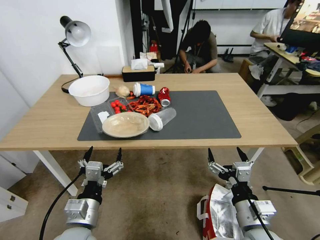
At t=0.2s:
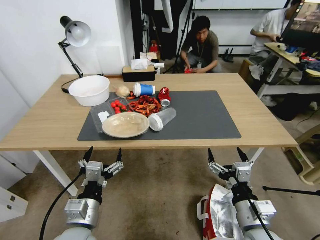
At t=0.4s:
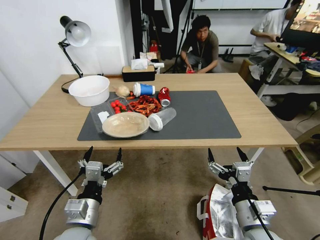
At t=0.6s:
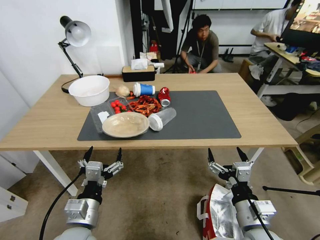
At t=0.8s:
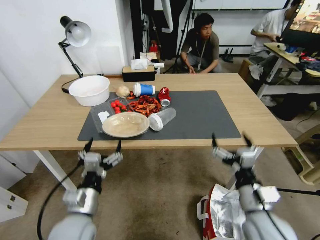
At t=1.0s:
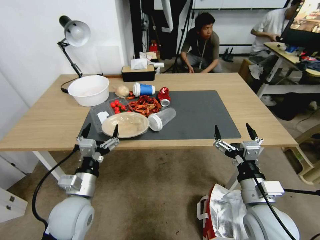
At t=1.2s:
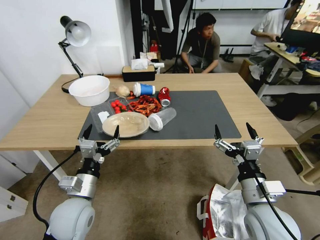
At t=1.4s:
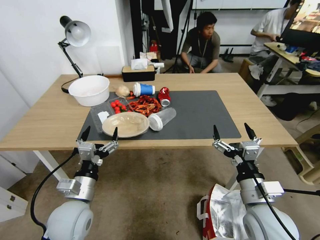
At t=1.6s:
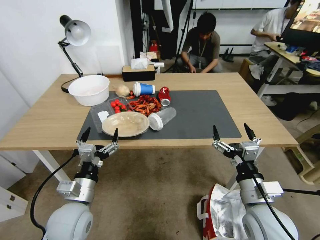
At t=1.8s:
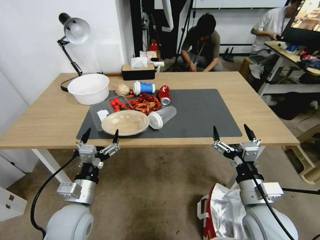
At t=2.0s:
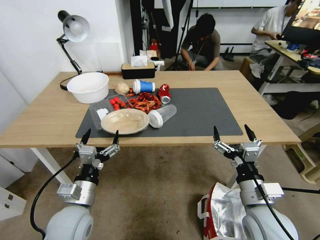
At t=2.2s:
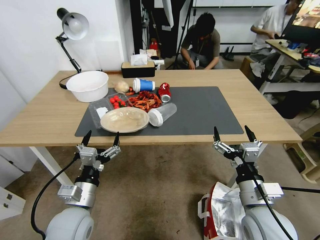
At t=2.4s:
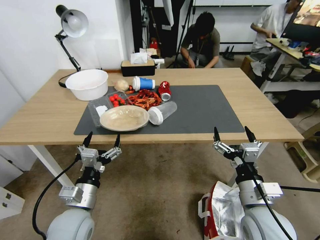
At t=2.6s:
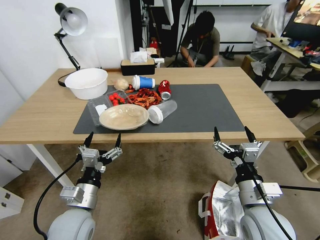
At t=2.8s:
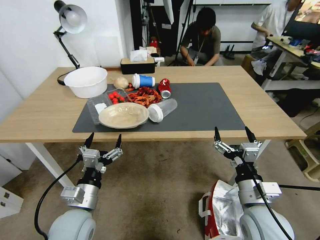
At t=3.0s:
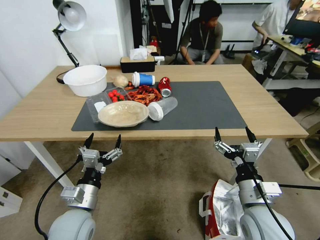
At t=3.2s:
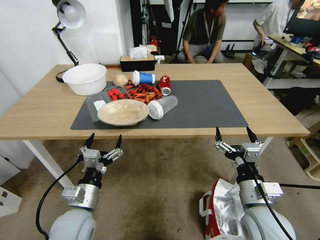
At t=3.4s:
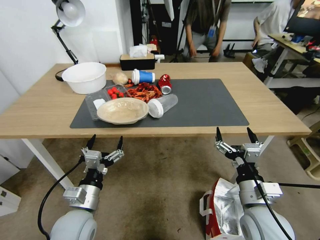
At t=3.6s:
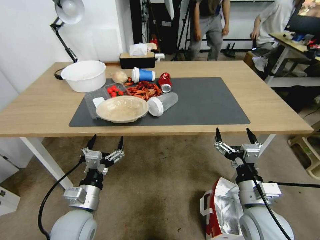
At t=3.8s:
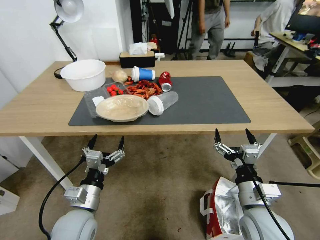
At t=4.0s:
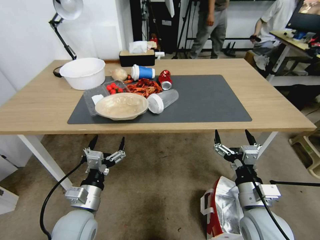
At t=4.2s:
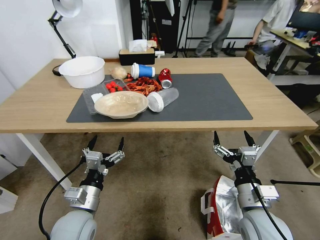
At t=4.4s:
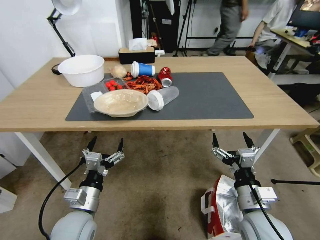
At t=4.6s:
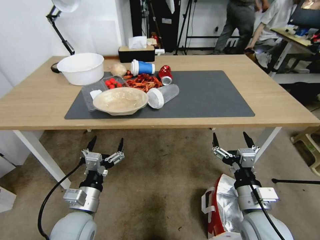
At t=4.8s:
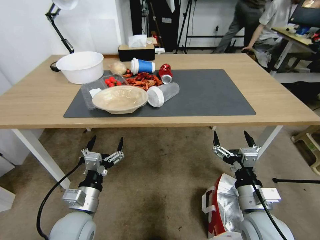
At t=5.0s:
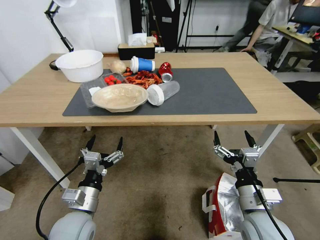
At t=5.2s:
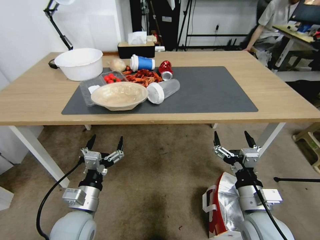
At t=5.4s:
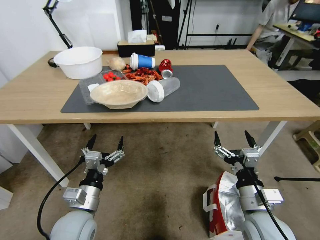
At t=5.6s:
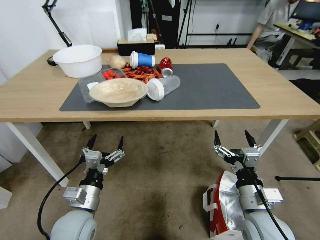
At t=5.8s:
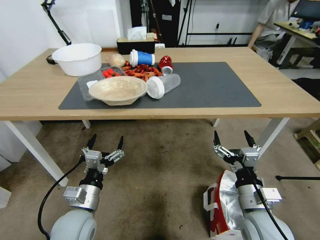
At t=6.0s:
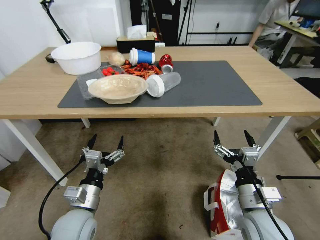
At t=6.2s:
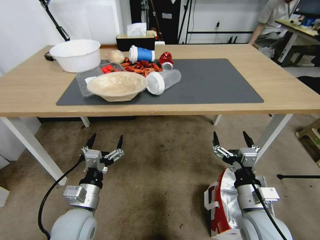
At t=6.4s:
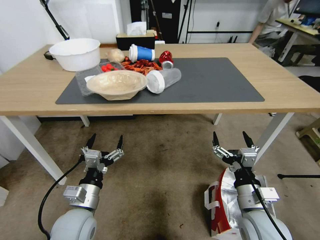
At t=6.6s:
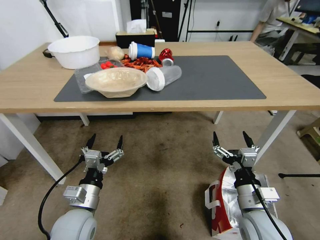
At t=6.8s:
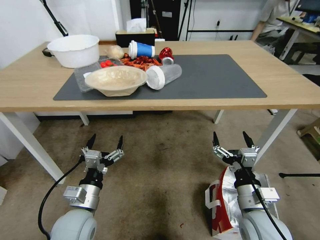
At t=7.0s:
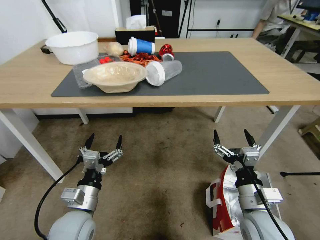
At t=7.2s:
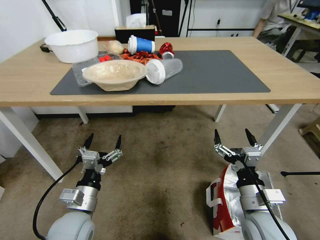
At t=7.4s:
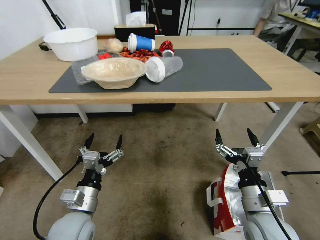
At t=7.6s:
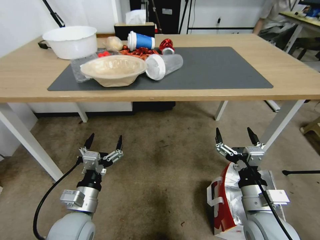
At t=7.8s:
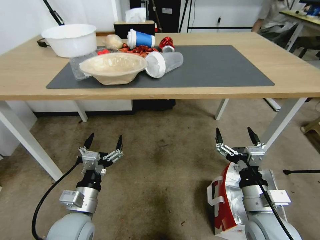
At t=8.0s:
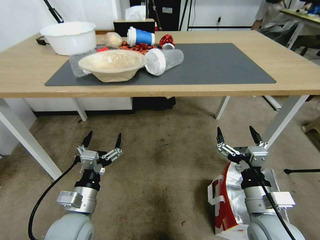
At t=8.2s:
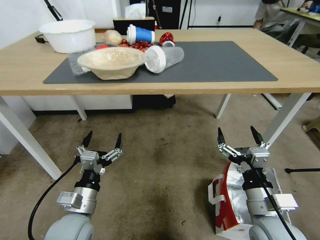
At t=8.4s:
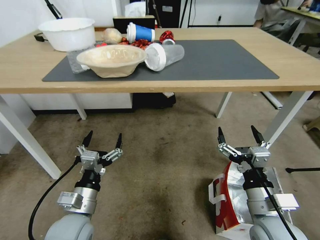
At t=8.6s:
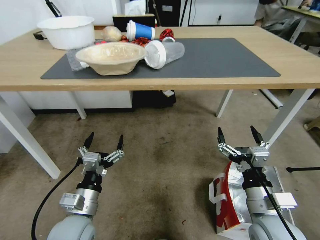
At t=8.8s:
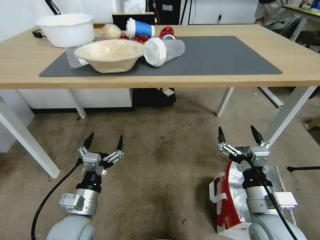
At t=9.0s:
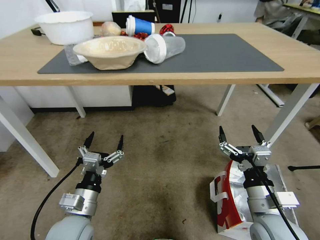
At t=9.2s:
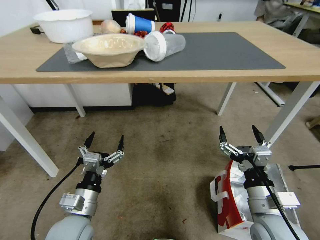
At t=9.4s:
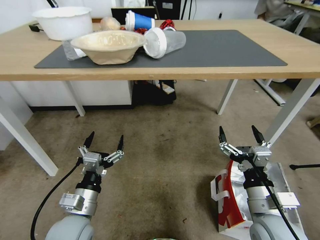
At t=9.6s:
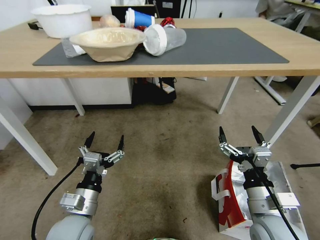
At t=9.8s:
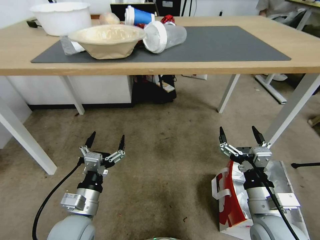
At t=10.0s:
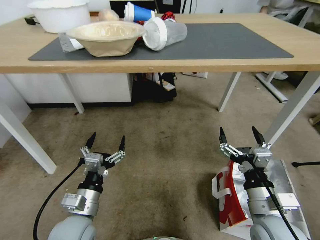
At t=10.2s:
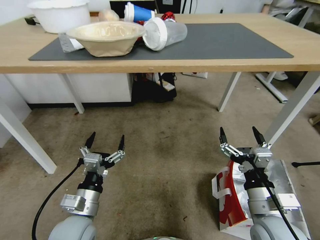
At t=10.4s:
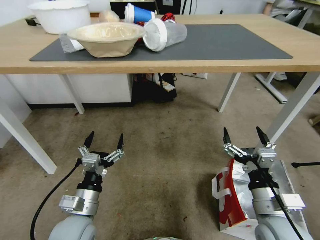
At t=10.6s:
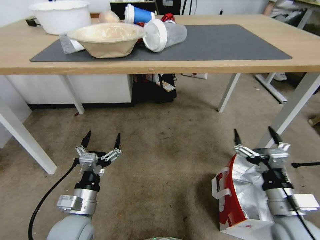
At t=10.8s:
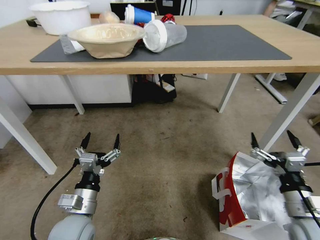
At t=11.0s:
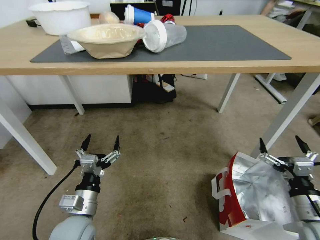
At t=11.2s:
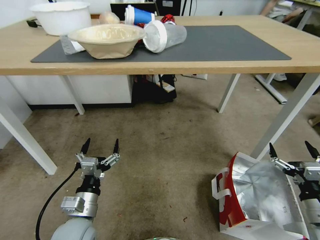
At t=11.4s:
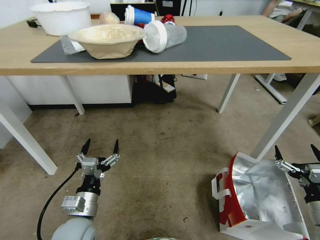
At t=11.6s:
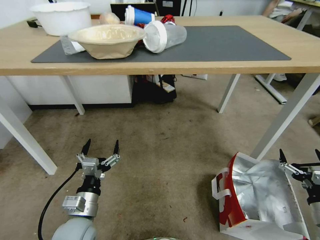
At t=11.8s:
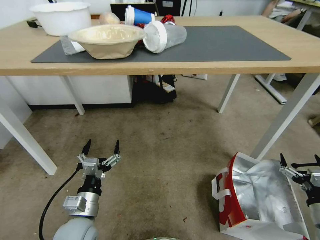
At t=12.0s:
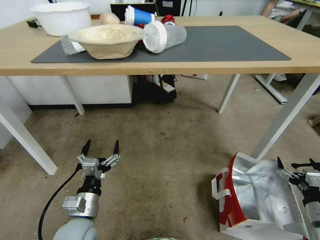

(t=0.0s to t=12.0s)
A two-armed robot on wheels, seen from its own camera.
Task of the whole recording: Pick up the food delivery bag from the floor and place it on the table.
t=10.4s - t=12.0s: The right gripper travels to the right and downward by roughly 25 cm.

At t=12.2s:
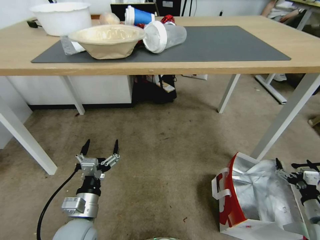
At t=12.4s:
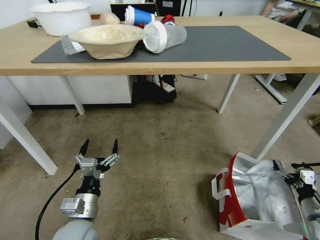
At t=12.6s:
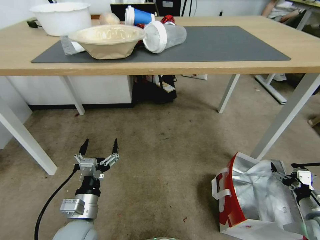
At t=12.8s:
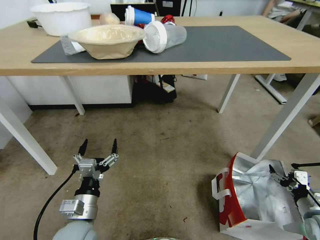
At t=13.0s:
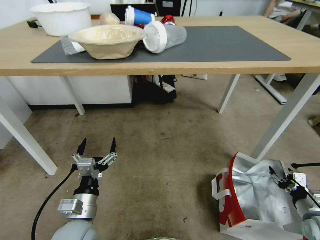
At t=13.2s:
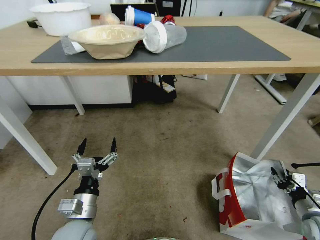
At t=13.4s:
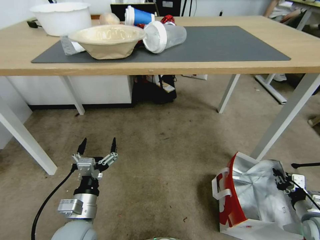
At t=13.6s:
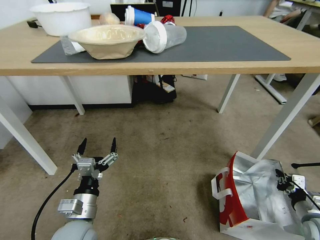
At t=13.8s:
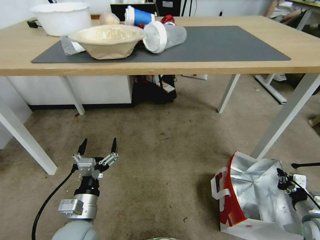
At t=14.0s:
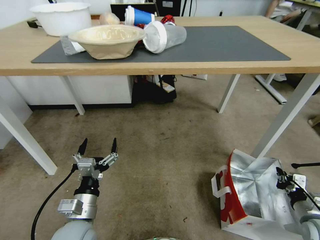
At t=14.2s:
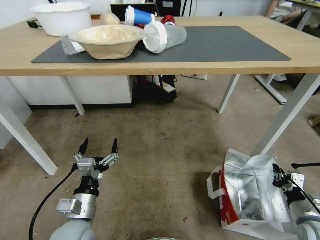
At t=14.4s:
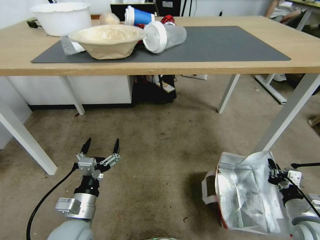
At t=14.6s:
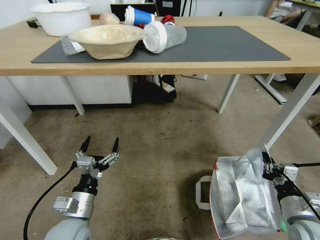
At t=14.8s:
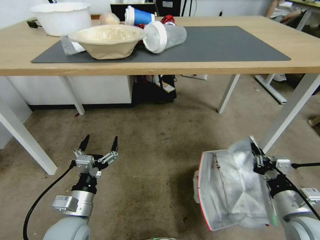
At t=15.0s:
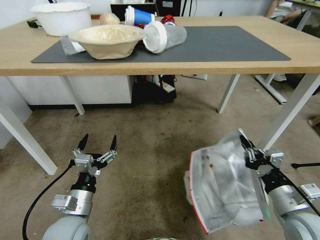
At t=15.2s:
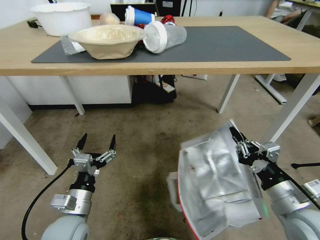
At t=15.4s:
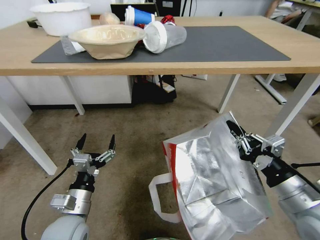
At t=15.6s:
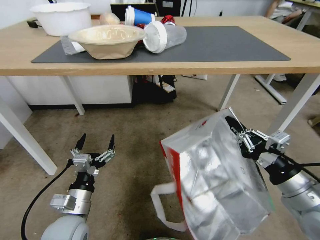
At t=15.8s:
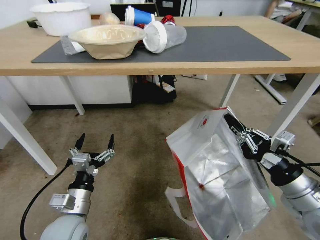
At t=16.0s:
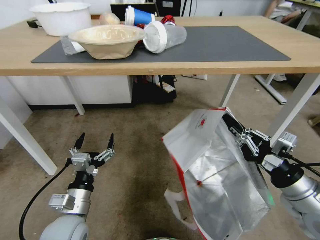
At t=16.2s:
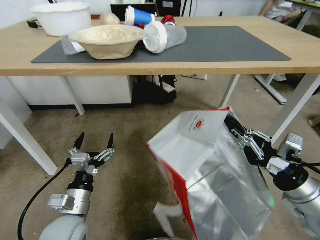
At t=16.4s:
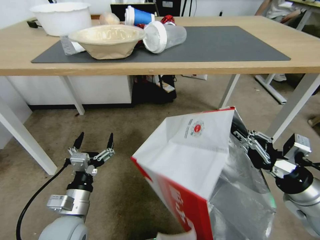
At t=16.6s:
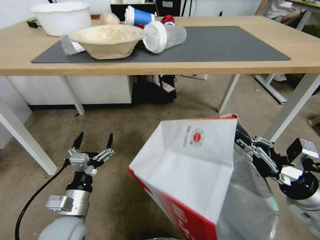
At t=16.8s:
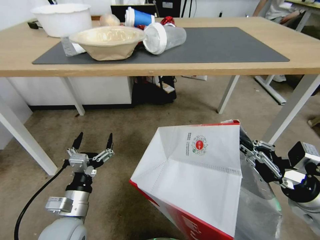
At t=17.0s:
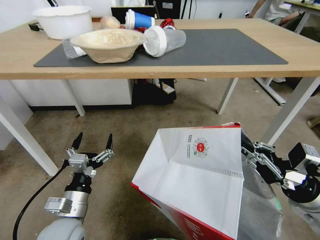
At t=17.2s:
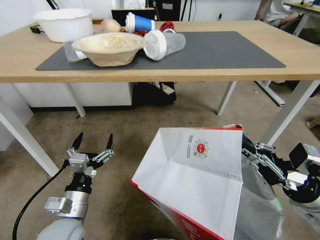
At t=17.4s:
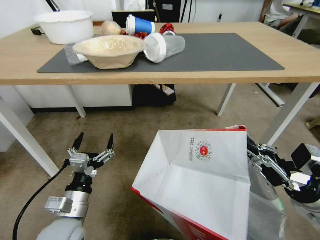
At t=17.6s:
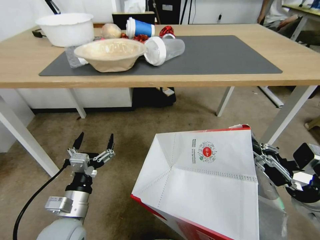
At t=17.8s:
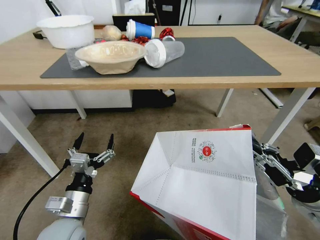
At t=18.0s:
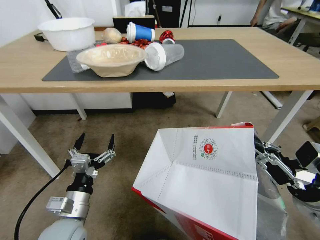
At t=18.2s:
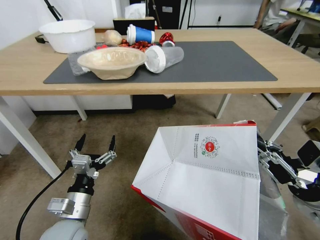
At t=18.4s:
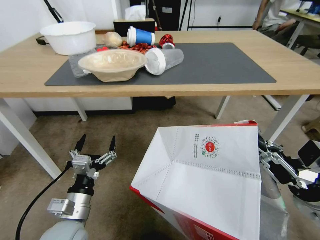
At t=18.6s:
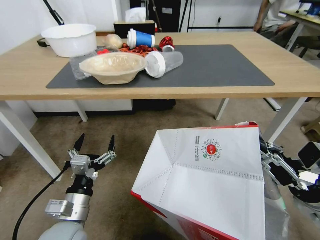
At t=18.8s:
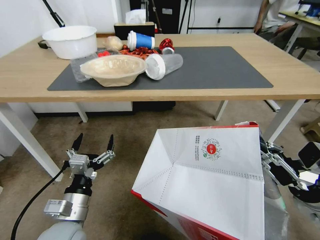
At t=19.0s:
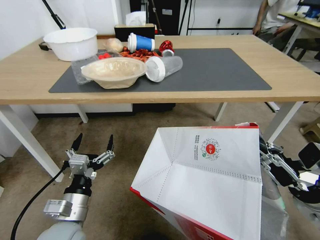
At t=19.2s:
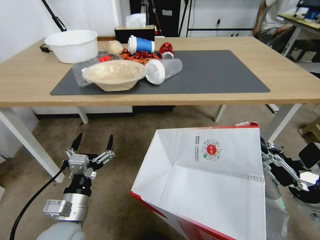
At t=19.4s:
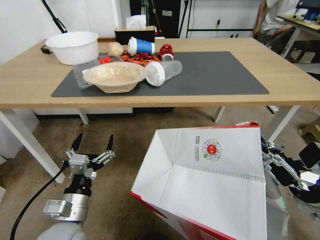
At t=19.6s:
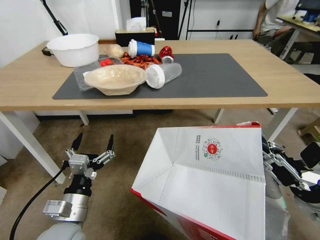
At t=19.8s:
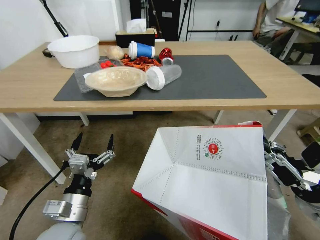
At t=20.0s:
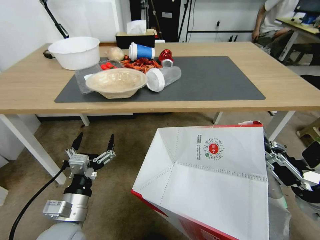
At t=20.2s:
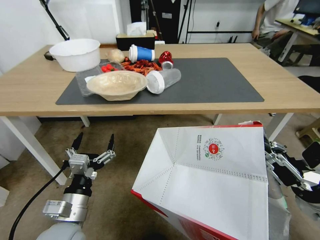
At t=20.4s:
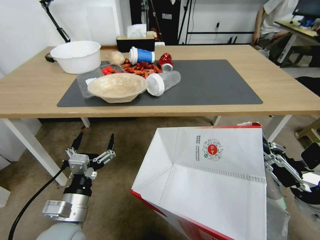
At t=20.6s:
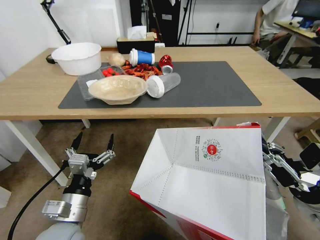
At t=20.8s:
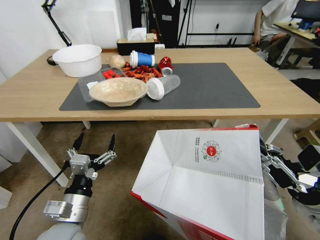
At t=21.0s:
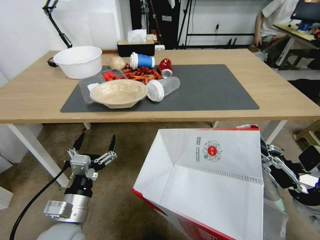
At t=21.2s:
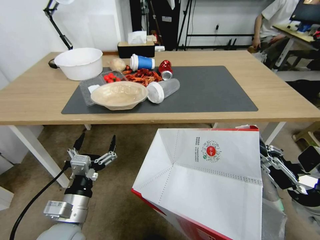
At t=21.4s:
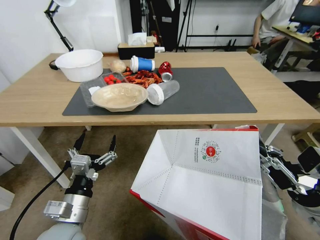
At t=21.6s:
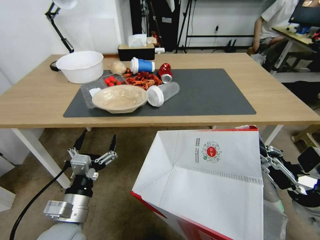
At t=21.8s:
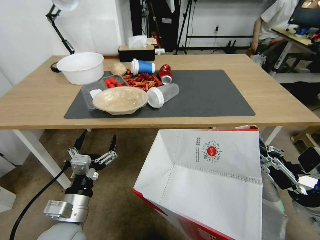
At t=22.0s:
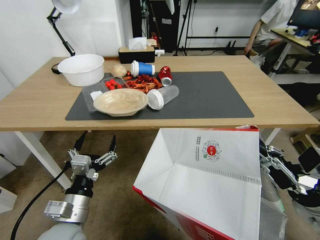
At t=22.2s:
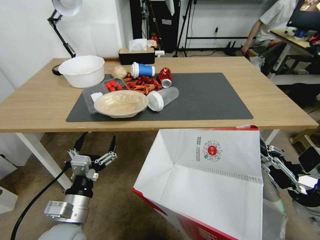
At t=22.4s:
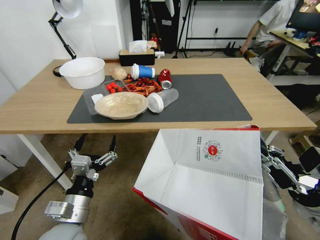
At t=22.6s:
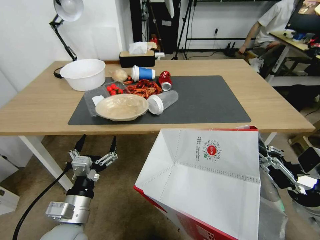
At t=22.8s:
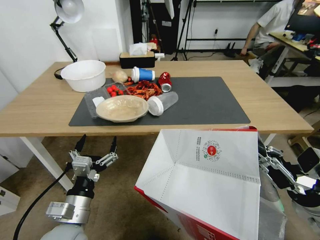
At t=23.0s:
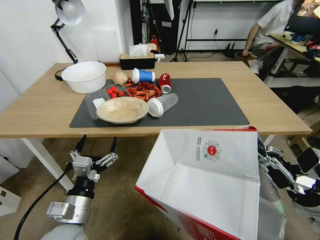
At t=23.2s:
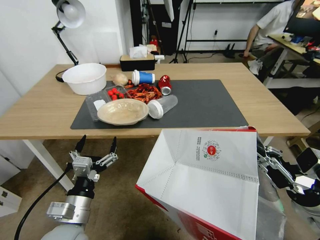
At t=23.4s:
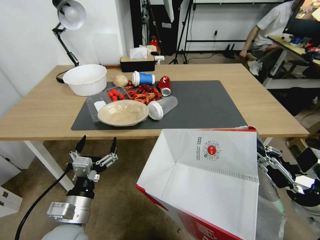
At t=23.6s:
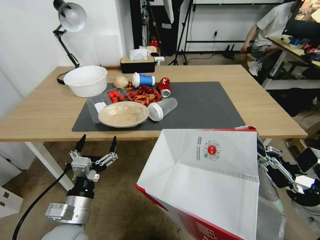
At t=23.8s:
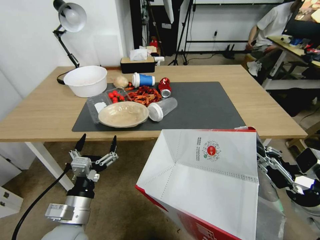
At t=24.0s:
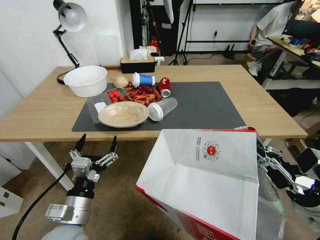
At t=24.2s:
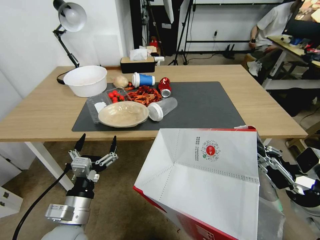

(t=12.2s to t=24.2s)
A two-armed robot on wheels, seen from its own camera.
Task of the whole recording: Pick up the food delivery bag from the floor and place it on the table.
t=12.2s - t=13.8s: The right gripper closes its fingers.
t=13.8s - t=15.2s: The right gripper travels to the left and upward by some 20 cm.
t=15.2s - t=16.6s: The right gripper moves approximately 5 cm.
